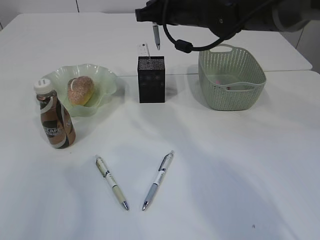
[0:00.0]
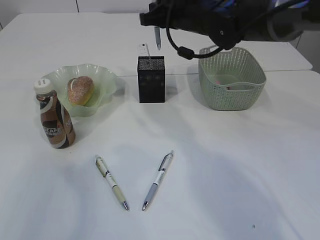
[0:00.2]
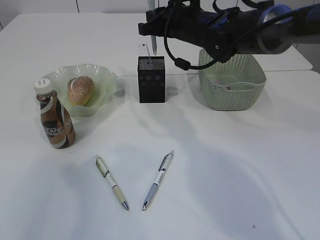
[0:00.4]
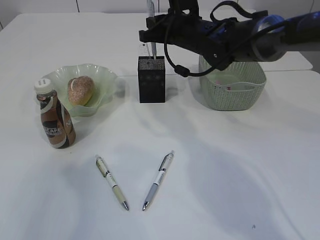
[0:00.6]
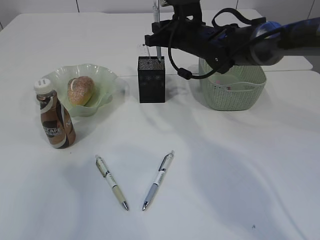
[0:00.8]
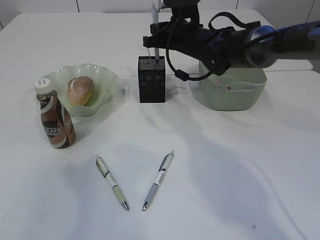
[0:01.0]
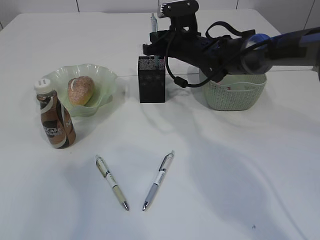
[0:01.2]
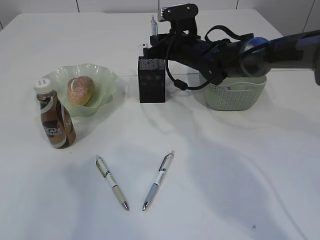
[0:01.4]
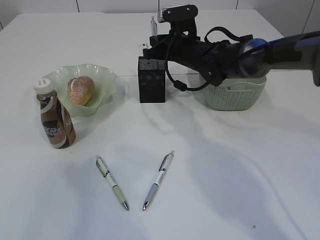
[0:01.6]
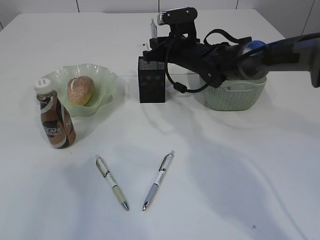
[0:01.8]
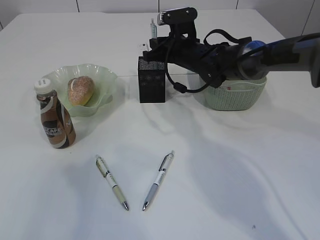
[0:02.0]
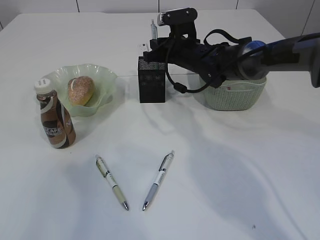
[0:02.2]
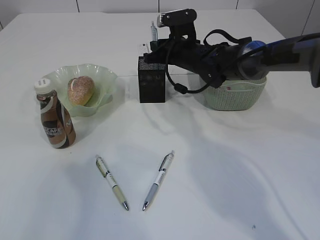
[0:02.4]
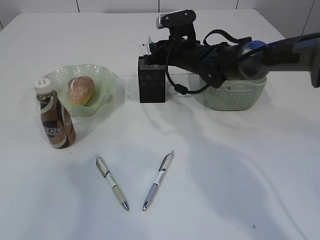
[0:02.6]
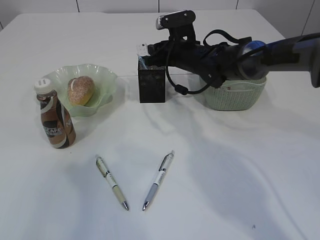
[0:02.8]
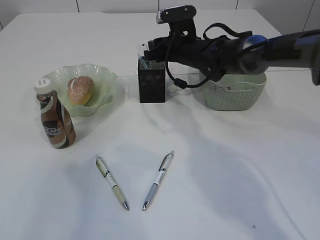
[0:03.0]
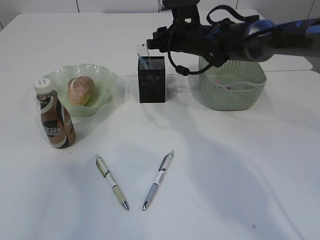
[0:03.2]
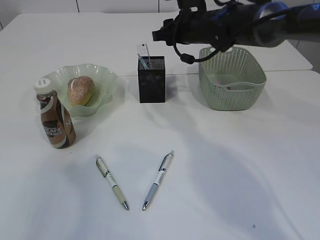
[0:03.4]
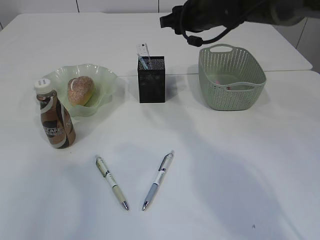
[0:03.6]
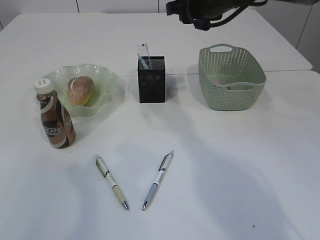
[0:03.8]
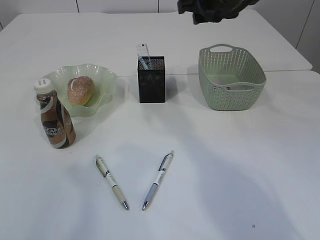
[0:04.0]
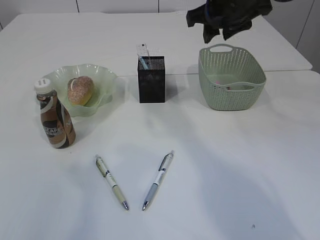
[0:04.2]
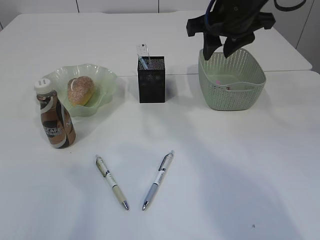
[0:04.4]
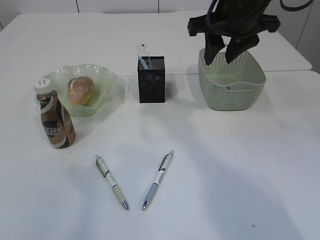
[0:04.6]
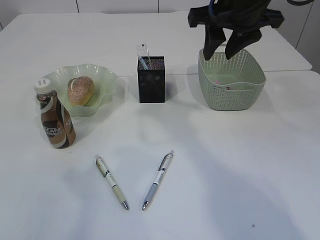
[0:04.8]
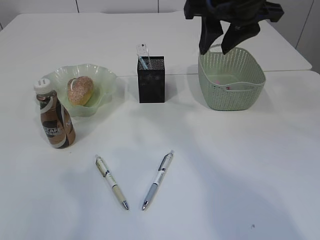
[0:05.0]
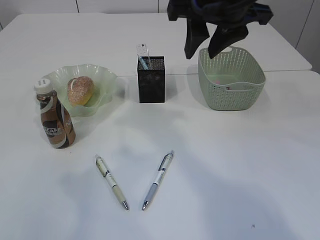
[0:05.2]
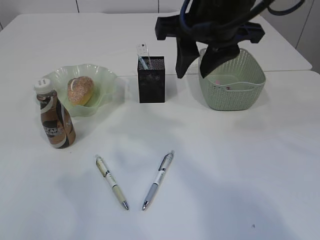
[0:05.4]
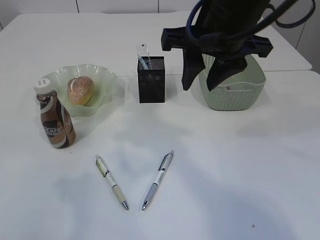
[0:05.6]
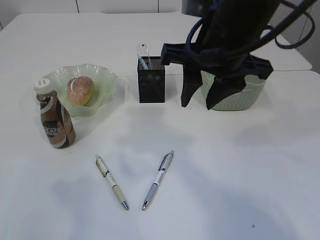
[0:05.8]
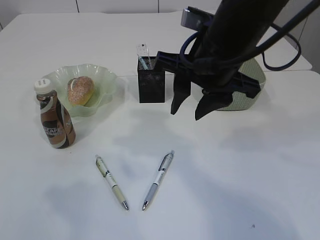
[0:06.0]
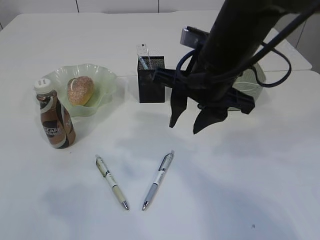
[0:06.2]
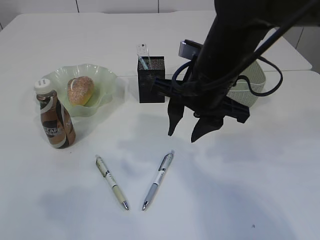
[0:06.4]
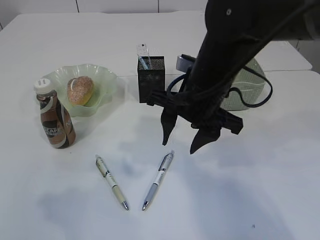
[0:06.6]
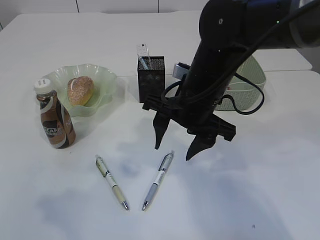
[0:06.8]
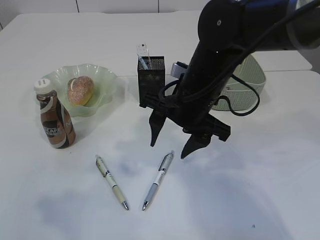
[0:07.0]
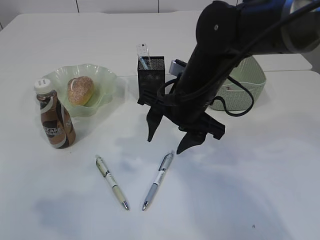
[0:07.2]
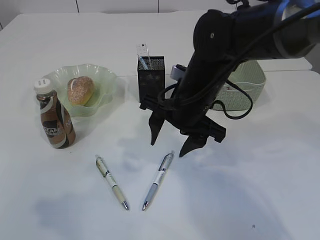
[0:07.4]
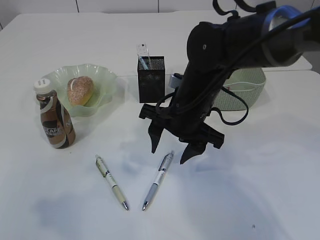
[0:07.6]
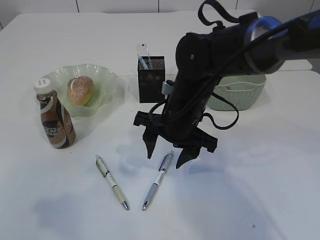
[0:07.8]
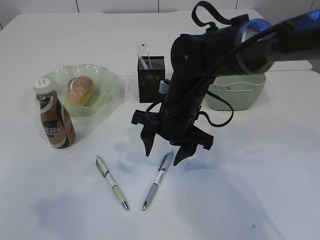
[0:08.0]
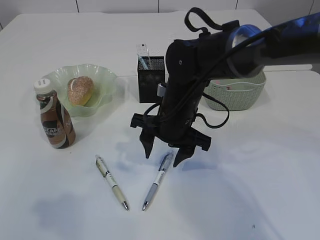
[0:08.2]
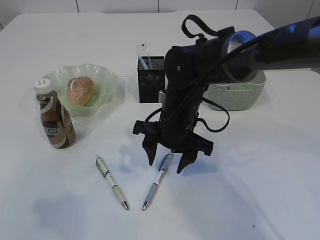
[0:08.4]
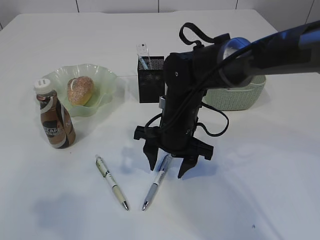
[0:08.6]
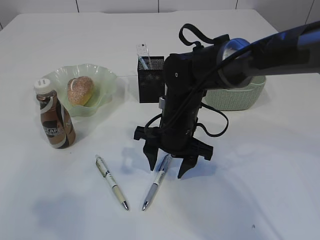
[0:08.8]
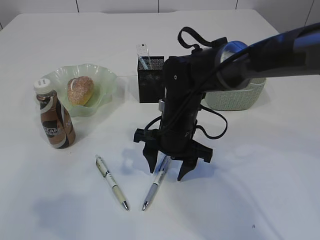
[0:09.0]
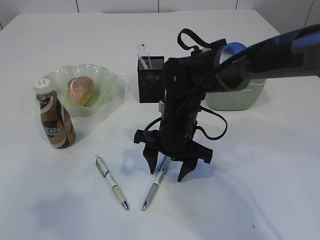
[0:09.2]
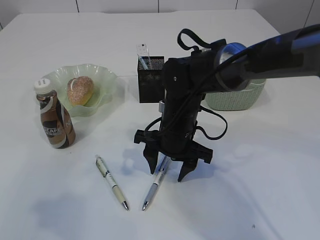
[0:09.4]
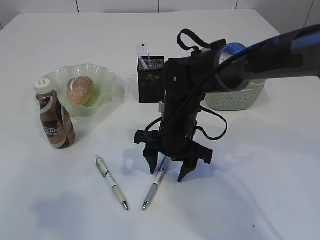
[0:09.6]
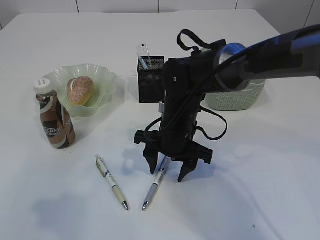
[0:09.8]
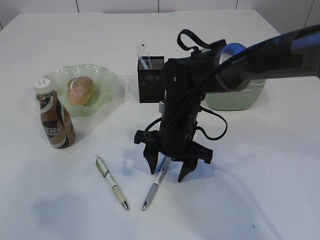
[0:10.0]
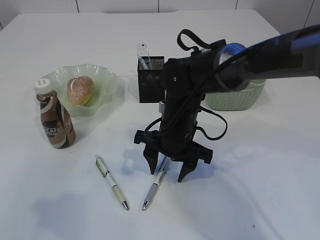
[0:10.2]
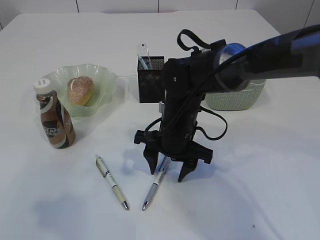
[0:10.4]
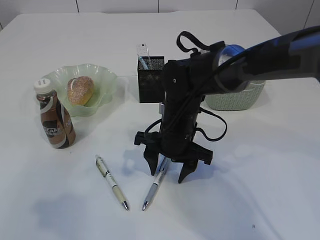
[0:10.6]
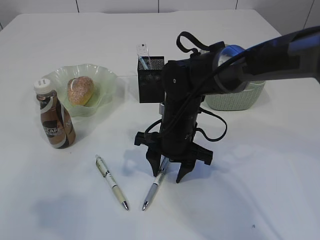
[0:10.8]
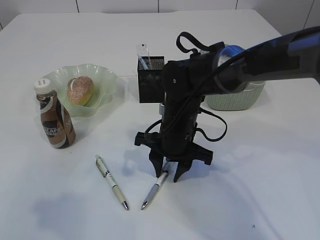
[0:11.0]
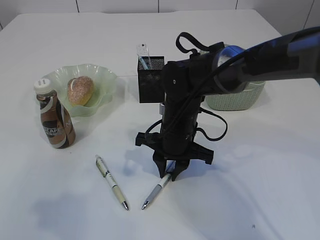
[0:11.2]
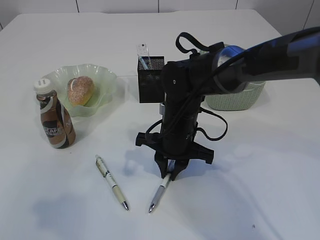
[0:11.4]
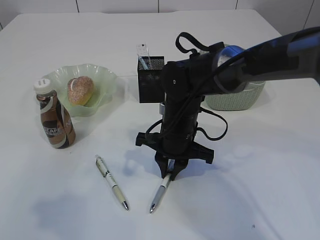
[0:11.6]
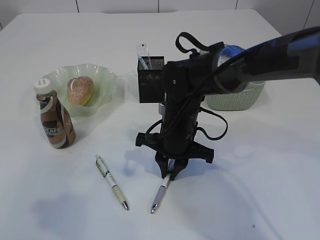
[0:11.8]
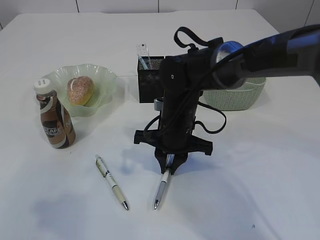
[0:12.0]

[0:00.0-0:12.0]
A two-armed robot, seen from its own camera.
Step, 0:00.0 to 0:03.6: Place the pen into the pen holder.
0:00.0 to 0:01.6: The right gripper is displaced downward and forward by some 10 cm.
0:01.6 to 0:03.0: The right gripper opens up.
0:03.0 to 0:04.4: The right gripper is displaced upward and backward by about 15 cm.
0:04.4 to 0:06.0: The right gripper goes about 10 cm backward and to the left.
0:06.0 to 0:07.6: The right gripper shifts about 10 cm downward.
0:07.6 to 0:09.0: The right gripper travels downward by approximately 5 cm.
0:09.0 to 0:10.4: Both grippers stay put.
0:10.4 to 0:12.0: The right gripper closes.

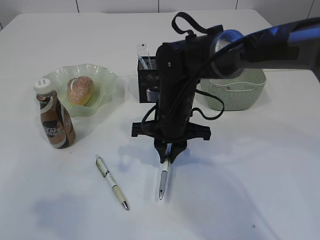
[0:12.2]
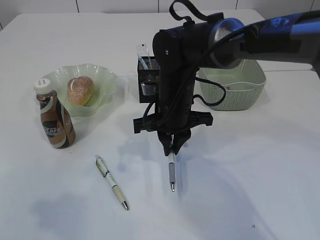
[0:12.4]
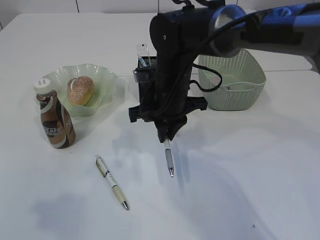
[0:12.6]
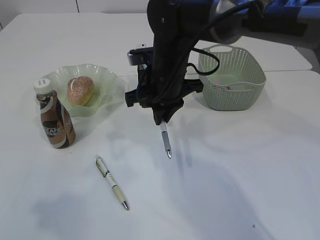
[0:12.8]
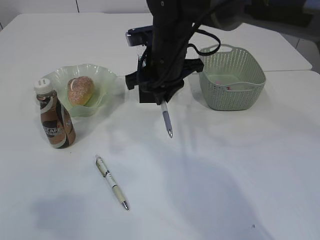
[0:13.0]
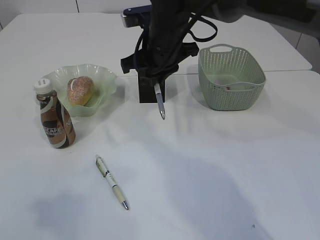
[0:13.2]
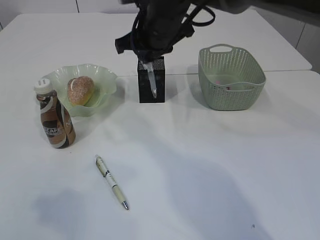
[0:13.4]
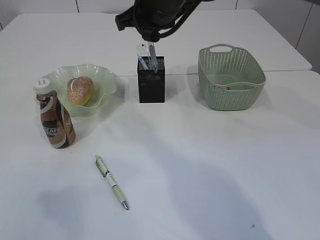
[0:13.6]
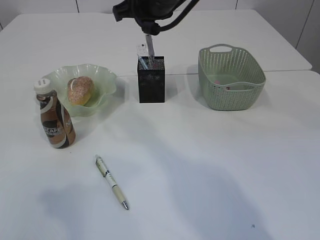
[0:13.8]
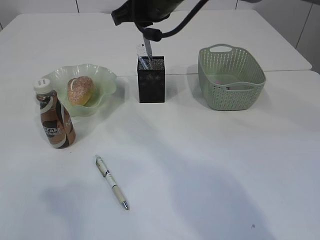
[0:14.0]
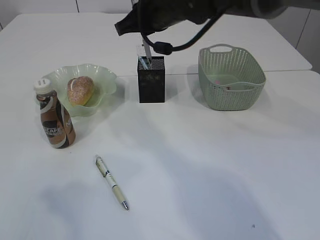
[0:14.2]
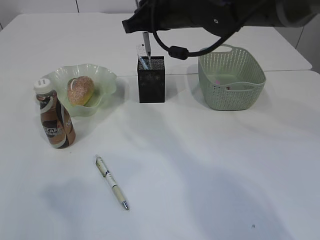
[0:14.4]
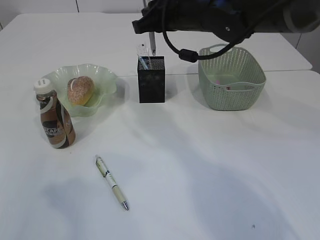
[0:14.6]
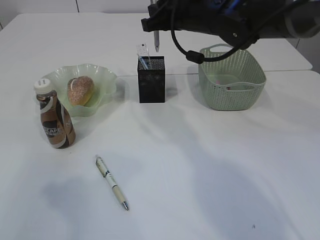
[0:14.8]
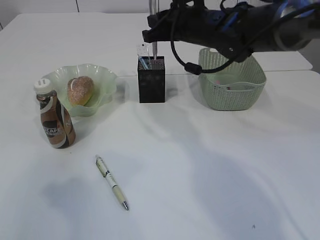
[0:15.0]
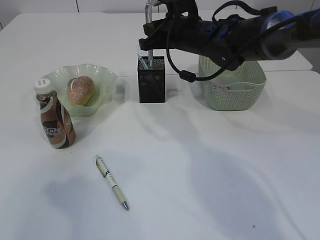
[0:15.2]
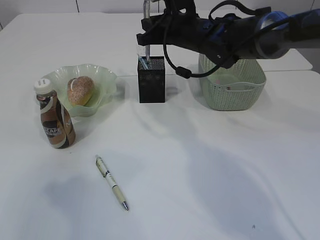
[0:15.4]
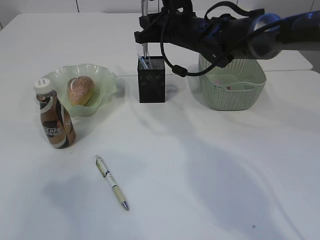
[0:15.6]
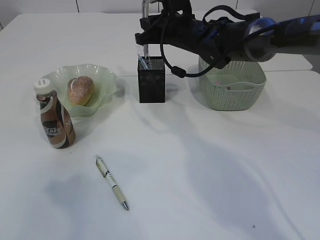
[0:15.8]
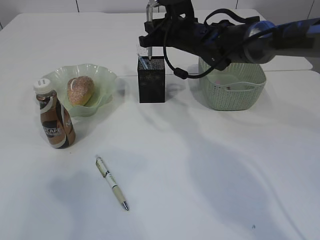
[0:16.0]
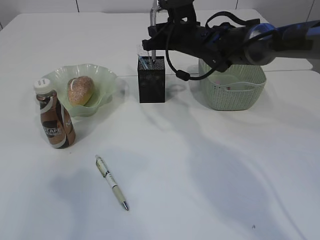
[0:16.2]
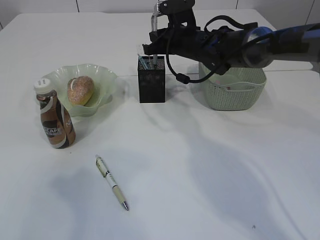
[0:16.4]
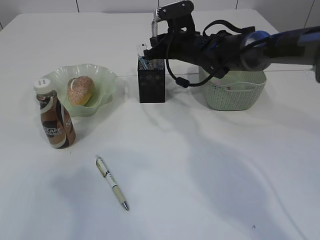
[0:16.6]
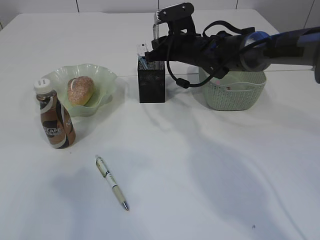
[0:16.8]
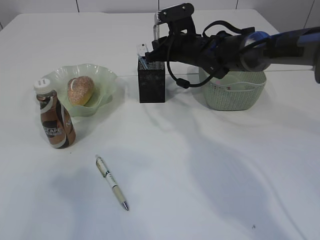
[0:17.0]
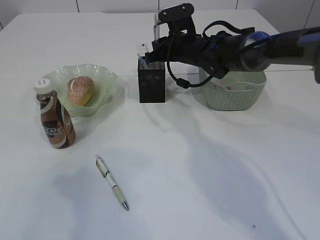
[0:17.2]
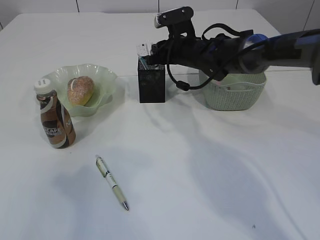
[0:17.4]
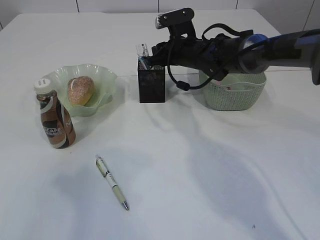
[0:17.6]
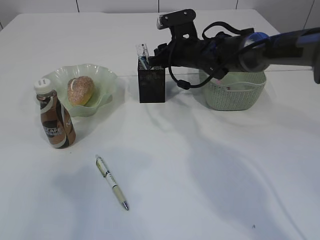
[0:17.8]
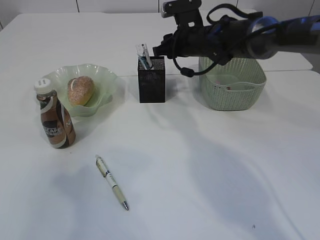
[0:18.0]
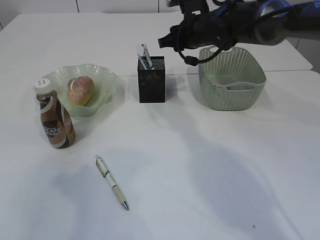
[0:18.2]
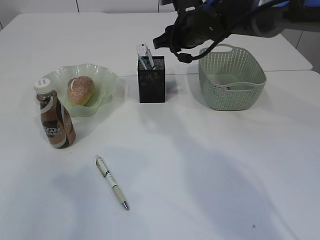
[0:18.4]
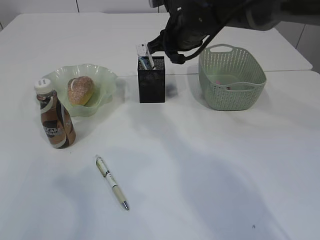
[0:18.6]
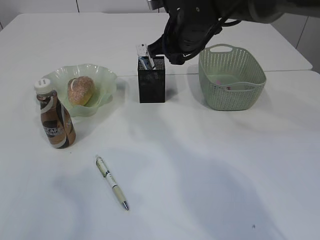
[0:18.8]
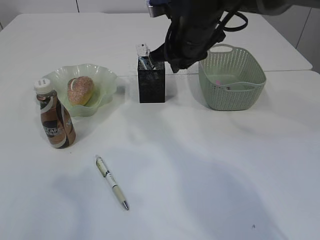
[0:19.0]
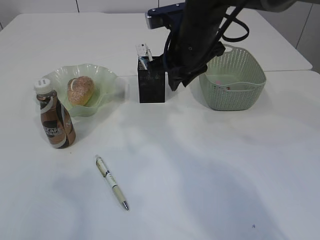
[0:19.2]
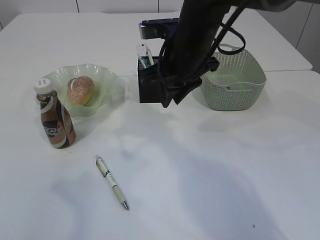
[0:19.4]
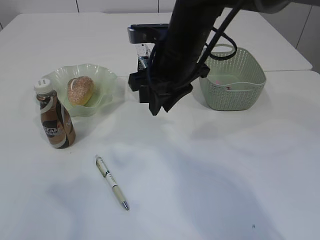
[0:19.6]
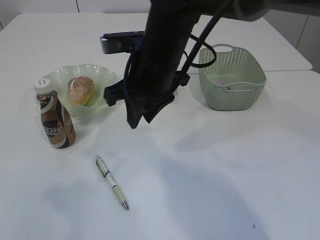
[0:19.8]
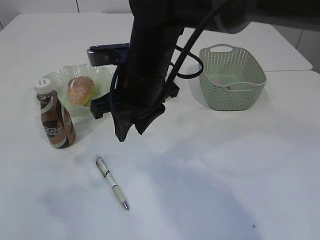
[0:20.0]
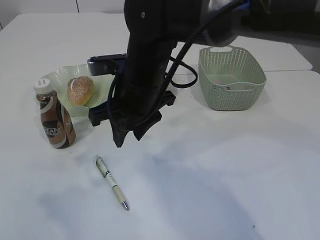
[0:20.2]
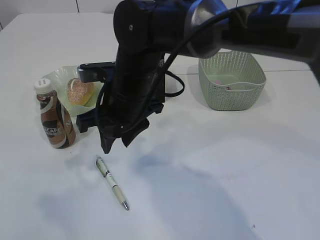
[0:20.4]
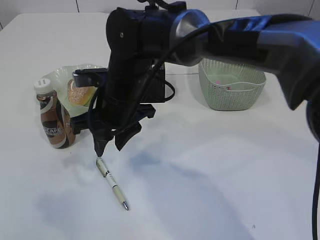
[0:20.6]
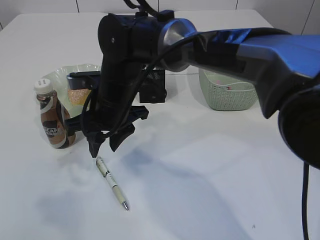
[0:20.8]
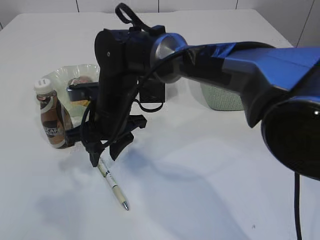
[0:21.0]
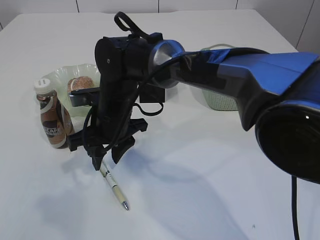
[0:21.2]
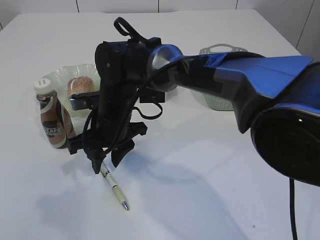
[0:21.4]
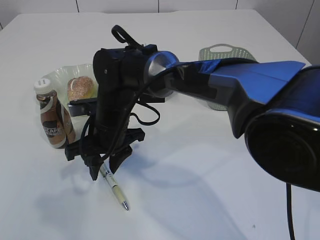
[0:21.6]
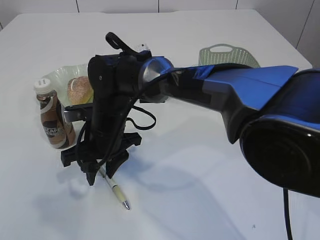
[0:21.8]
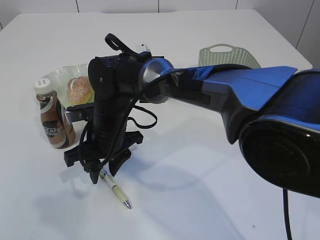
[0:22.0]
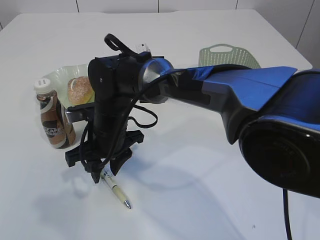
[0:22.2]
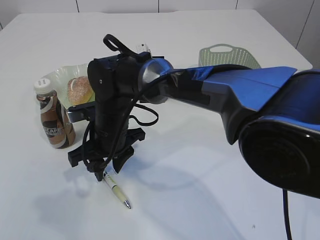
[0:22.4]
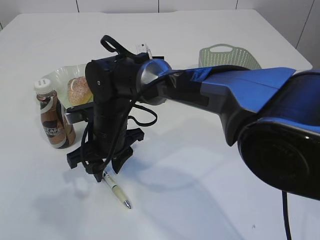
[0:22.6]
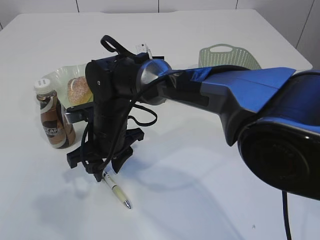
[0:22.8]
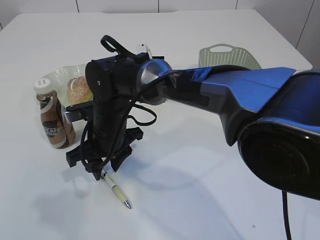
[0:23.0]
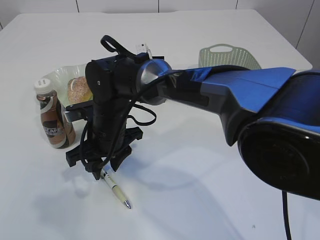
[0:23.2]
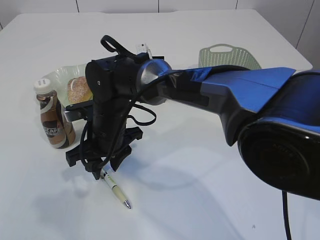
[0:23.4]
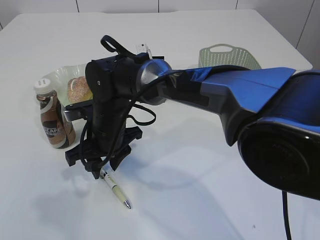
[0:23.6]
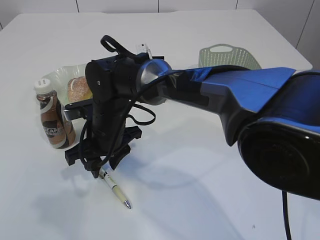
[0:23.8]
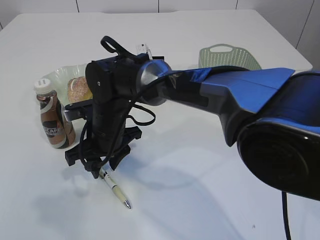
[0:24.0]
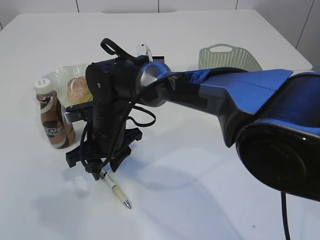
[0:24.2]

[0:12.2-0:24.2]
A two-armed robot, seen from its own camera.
Step, 0:12.8 to 0:18.2: Place the pen into the pen holder.
0:12.2 to 0:13.8: The right gripper goes about 20 cm upward.
0:13.8 to 0:15.2: The right gripper is displaced downward and to the right by some 10 cm.
0:15.2 to 0:16.6: The right gripper ends up some 5 cm from where it was.
0:16.6 to 0:18.2: The right gripper opens up.
0:18.2 to 0:19.8: The right gripper moves backward and to the left, approximately 15 cm.
0:19.8 to 0:21.2: The right gripper travels downward and to the left by roughly 15 cm.
0:22.6 to 0:24.2: The two grippers keep their place.
